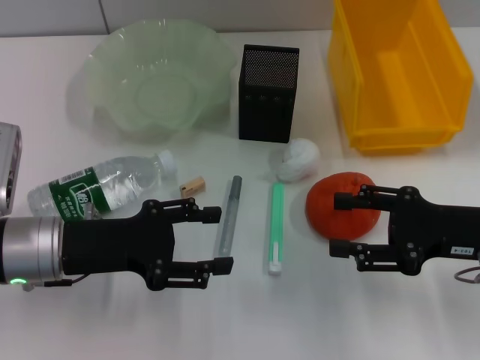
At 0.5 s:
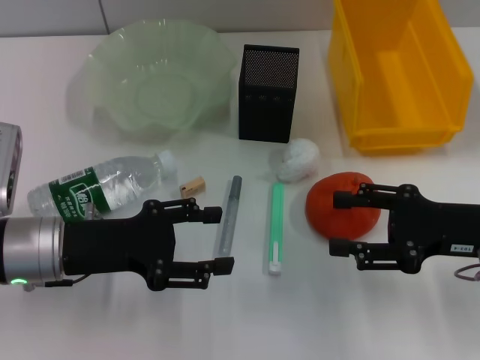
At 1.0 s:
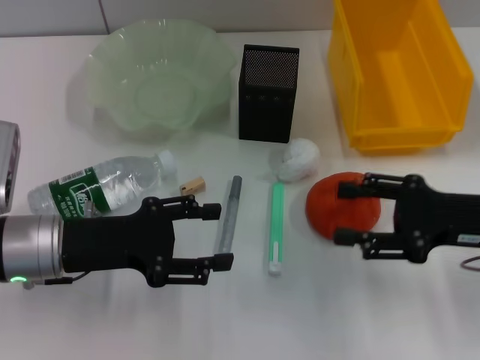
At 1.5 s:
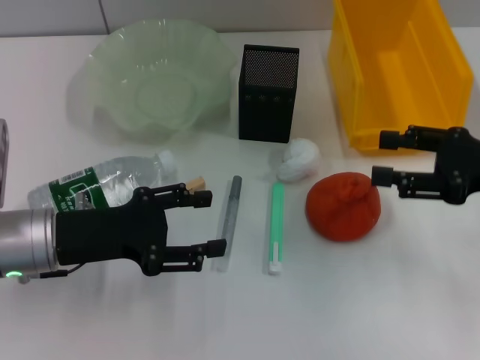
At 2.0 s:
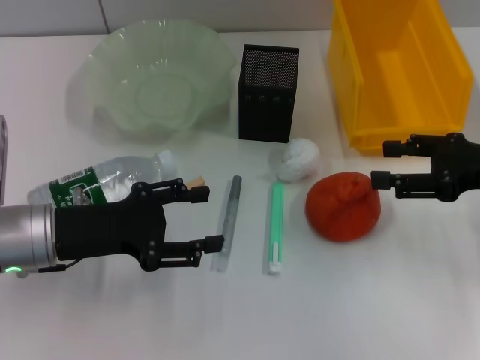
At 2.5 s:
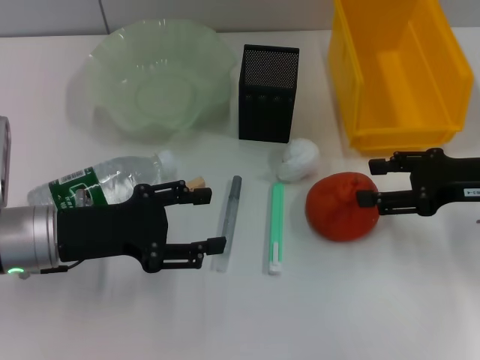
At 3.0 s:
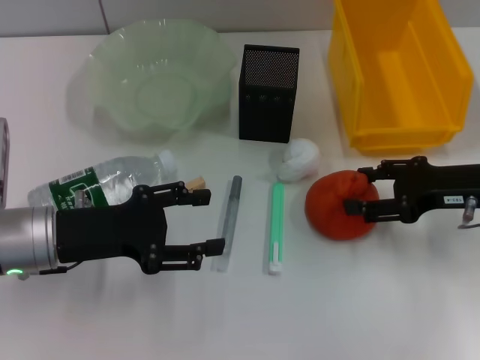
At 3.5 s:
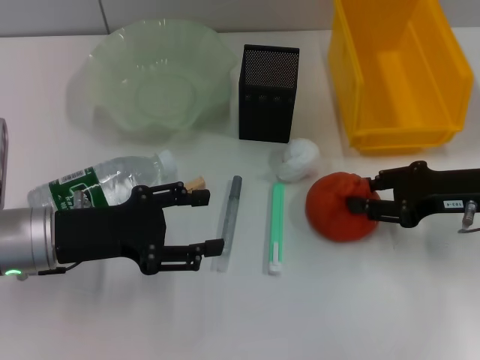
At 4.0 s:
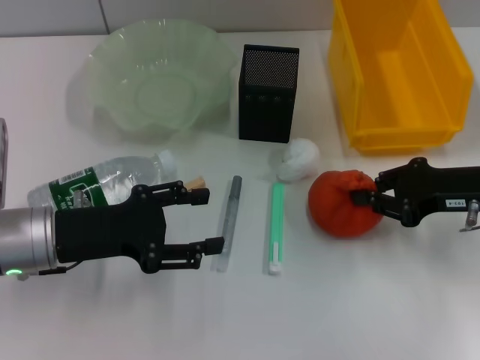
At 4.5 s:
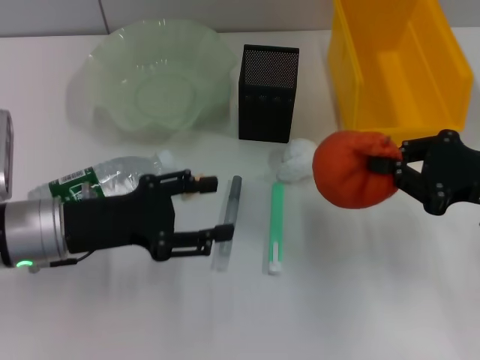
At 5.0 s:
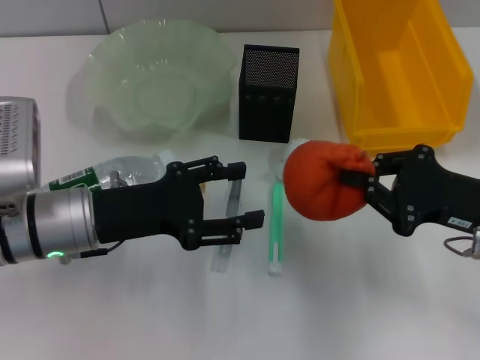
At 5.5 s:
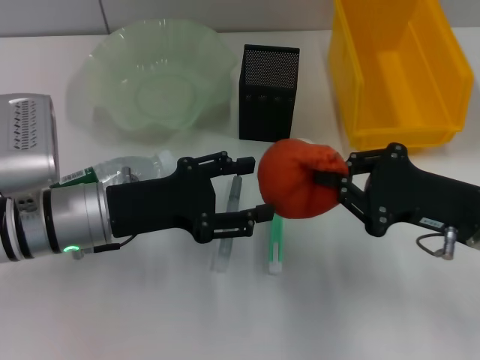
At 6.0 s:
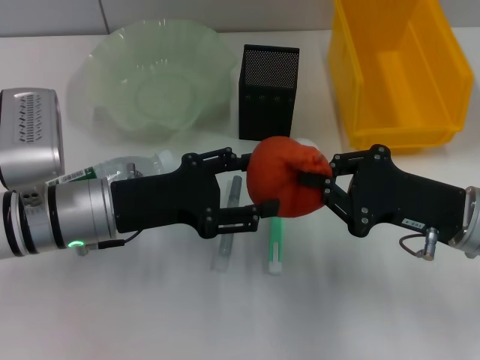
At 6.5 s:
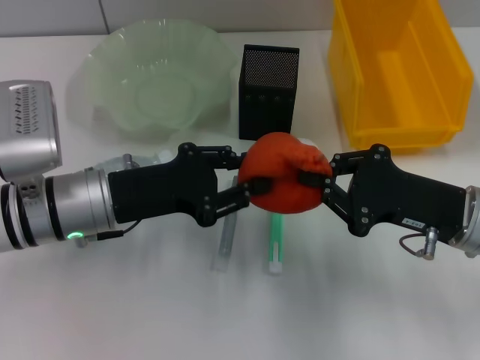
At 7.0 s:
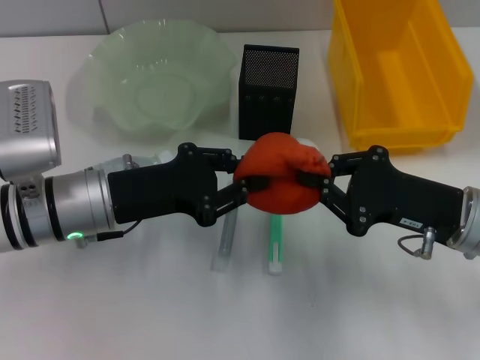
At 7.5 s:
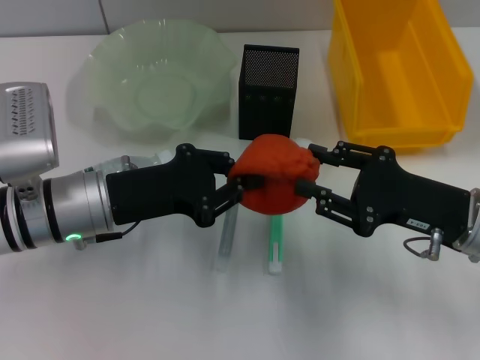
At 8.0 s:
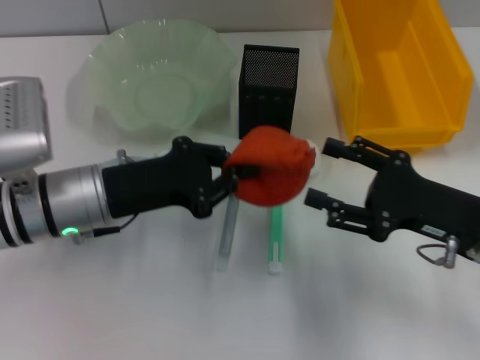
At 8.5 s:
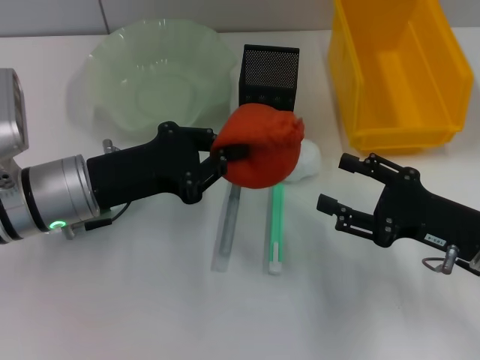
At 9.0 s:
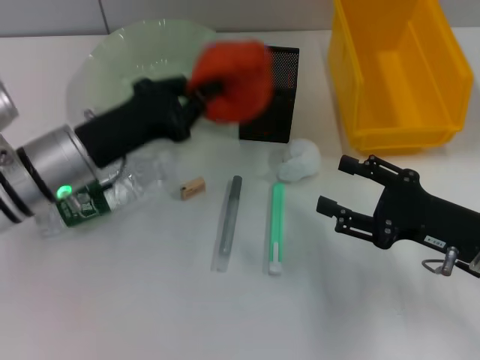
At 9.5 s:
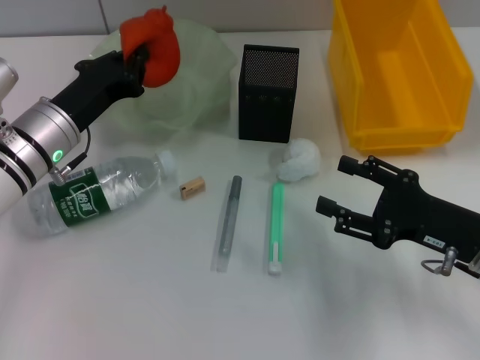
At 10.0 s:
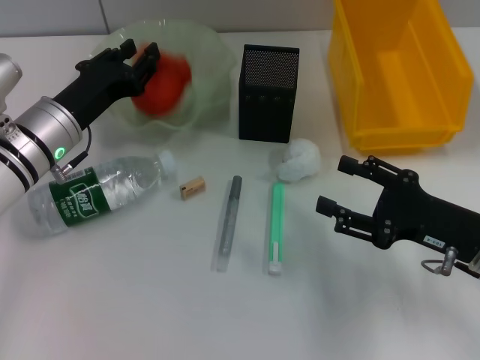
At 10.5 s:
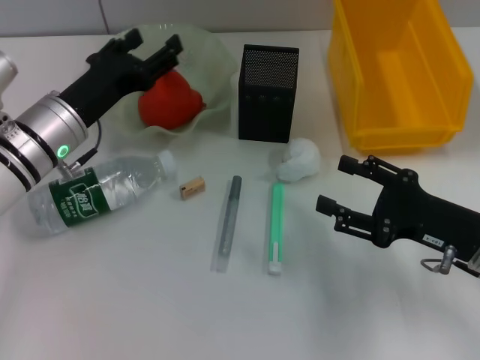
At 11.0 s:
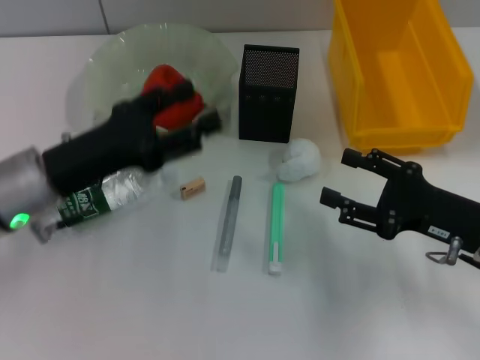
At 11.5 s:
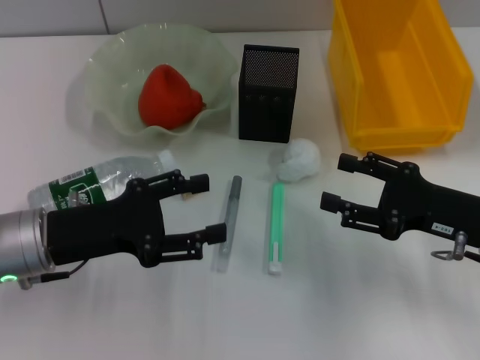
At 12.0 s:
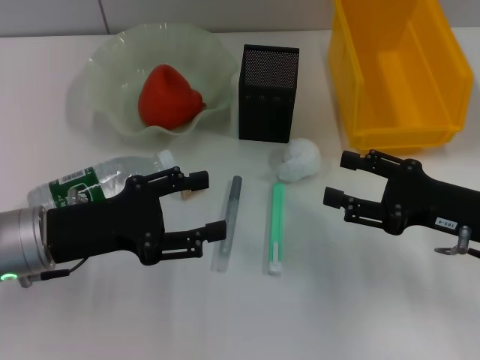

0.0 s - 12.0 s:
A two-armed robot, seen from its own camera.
Step, 0.0 s - 3.5 s: Grab the orange with the right hand.
Step, 4.0 s - 7.5 s: Pass the orange from the right hand to the left hand.
Step, 8.0 s - 9.5 s: Place the orange into the fruit bowl with the left hand.
0.0 s - 2.0 s: The right gripper ends up roughly 5 cm from where it was.
2.0 s - 4.0 s: The right gripper closes its fingers.
4.0 s - 6.0 s: The right gripper shifts some 5 cm to the left, while the left gripper shifts about 5 cm to the right.
6.0 s - 8.0 s: The left gripper closes up; the right gripper opens.
8.0 s - 10.0 s: The left gripper heads forward, covering approximately 5 cm.
10.0 s - 12.0 s: The left gripper shifts roughly 10 cm backward, and opens up.

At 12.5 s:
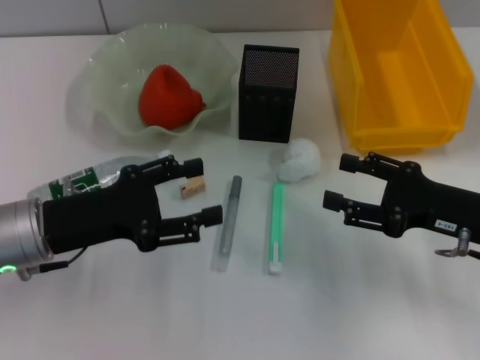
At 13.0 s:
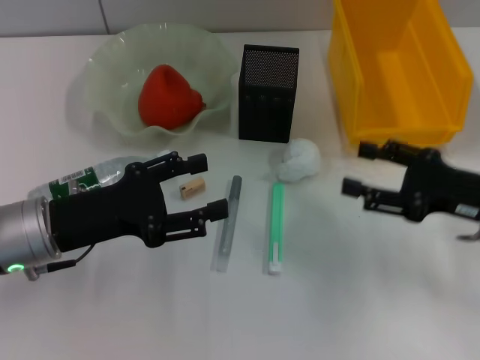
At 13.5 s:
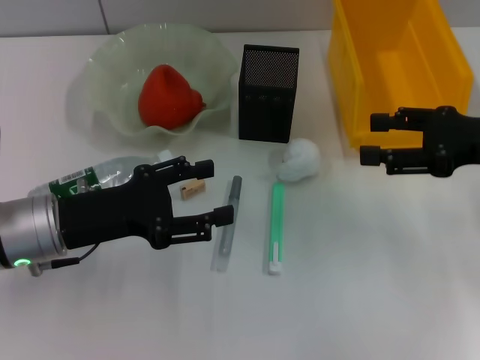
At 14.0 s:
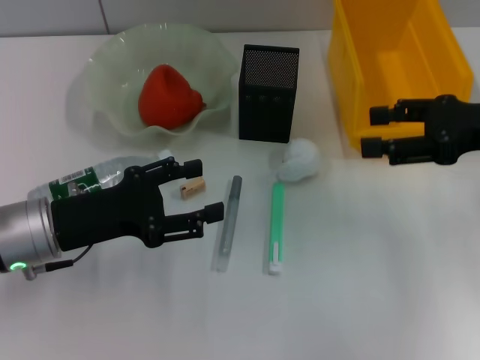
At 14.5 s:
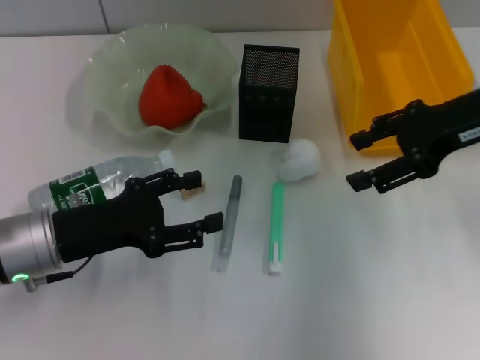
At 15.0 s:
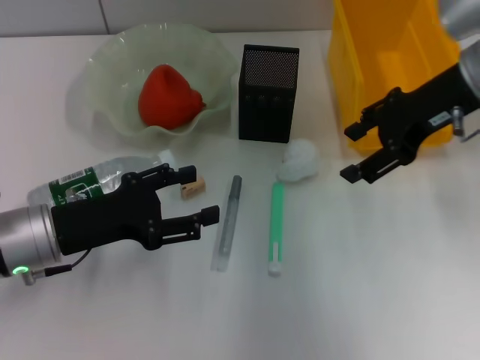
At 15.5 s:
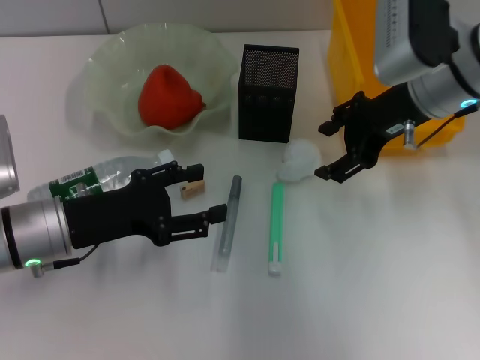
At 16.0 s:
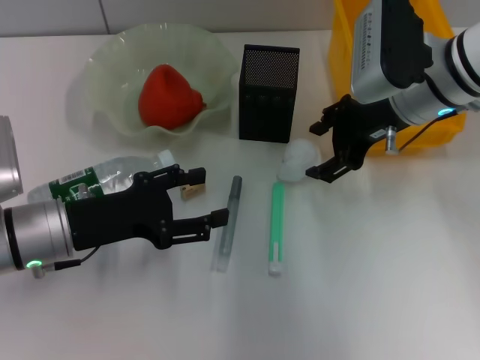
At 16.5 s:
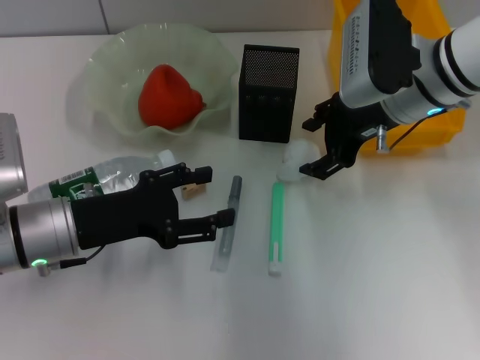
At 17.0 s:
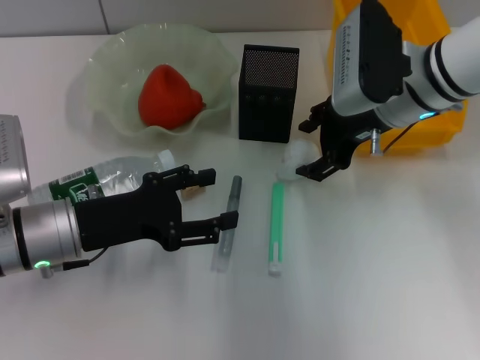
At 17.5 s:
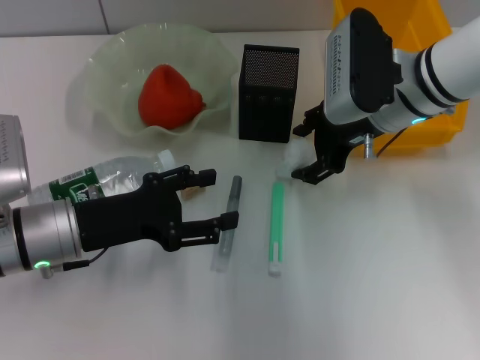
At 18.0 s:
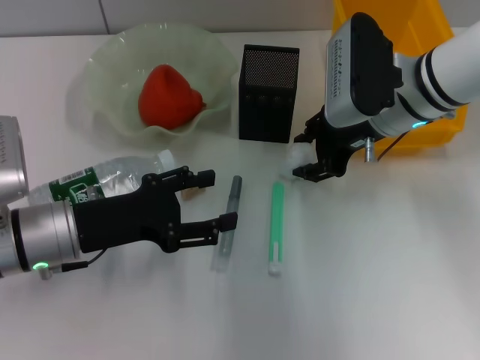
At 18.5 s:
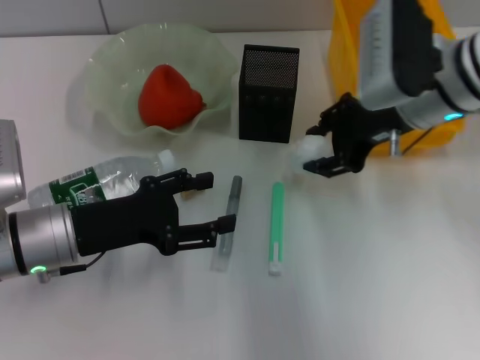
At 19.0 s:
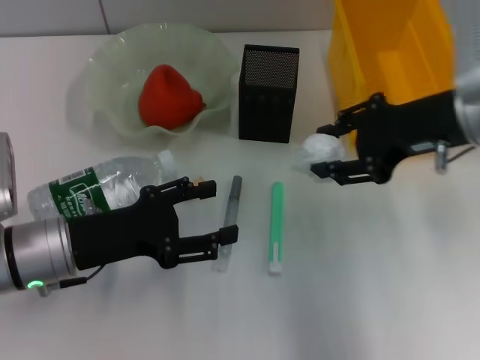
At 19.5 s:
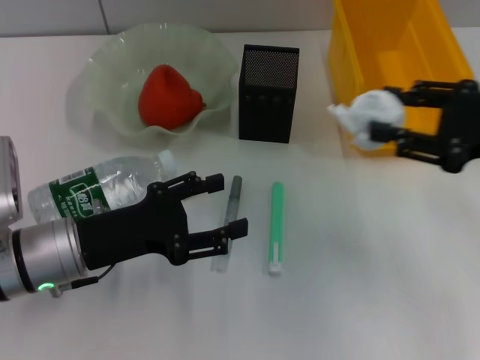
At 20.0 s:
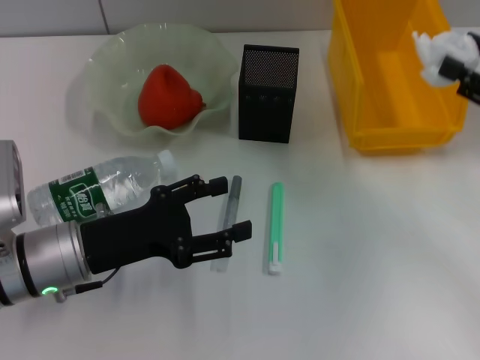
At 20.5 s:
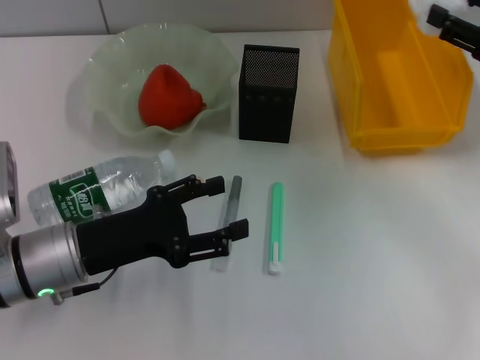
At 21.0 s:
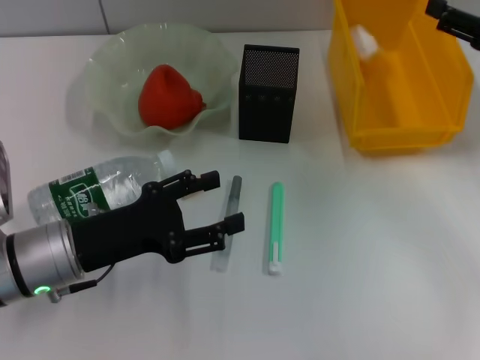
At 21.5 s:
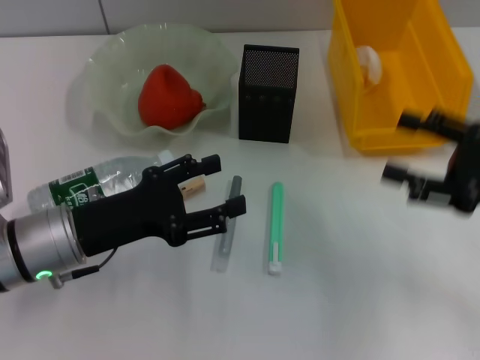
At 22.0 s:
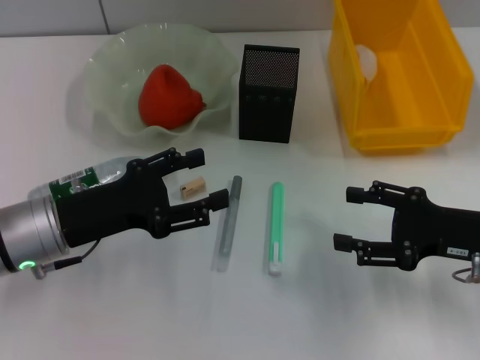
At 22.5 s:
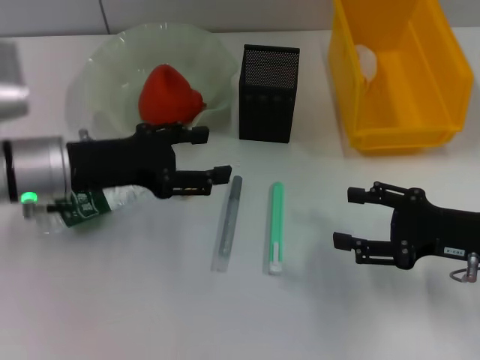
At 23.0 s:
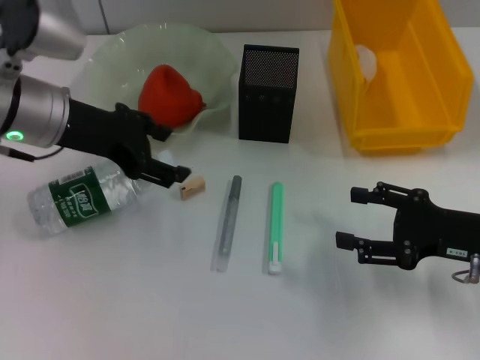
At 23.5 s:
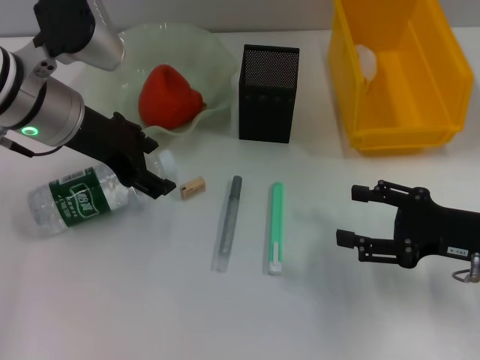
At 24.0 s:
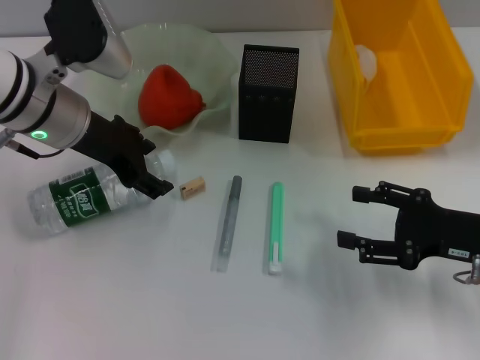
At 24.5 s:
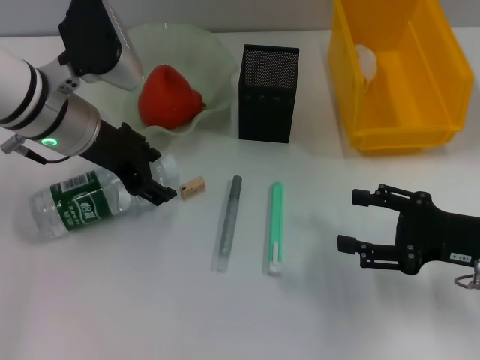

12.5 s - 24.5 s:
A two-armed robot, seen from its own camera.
Step, 12.5 s - 17.5 s: Grab the paper ball with the right hand.
Step, 18.0 s - 21.0 s: Place the paper ball into the trash can with the right hand.
12.5 s - 14.5 s: The right gripper moves upward and forward, roughly 15 cm.
14.5 s - 16.5 s: The right gripper shifts roughly 10 cm to the left.
16.5 s - 18.5 s: There are only small adjustments of the grippers.
18.5 s - 20.5 s: The right gripper heads to the right, covering roughly 15 cm.
20.5 s - 22.5 s: The right gripper is displaced downward, backward and to the left by some 15 cm. The left gripper heads forward and upward, covering approximately 10 cm.
22.5 s - 24.5 s: The left gripper goes roughly 5 cm forward.

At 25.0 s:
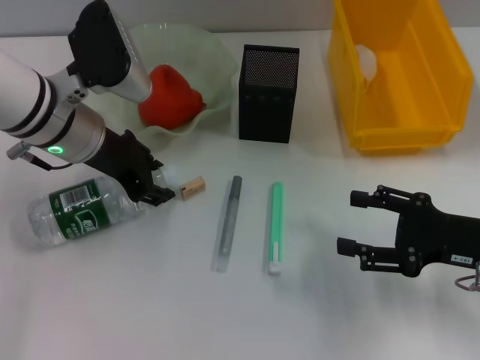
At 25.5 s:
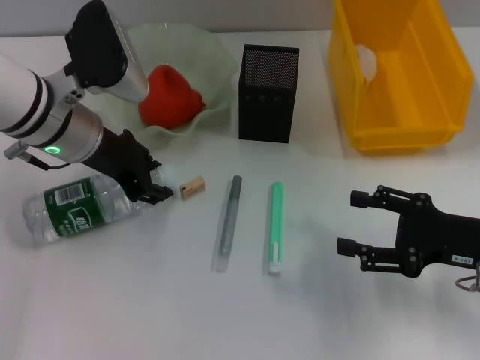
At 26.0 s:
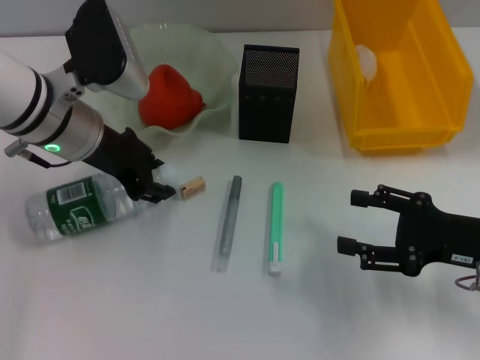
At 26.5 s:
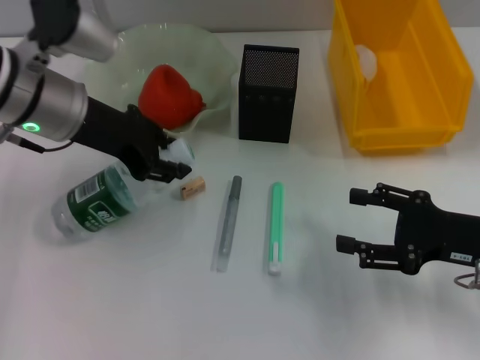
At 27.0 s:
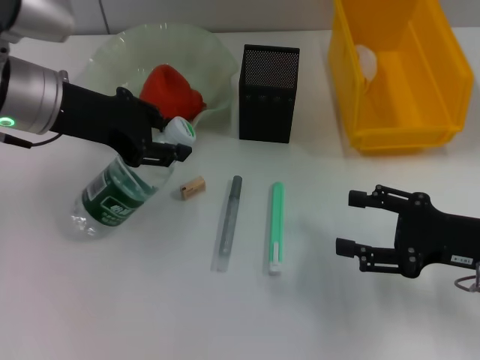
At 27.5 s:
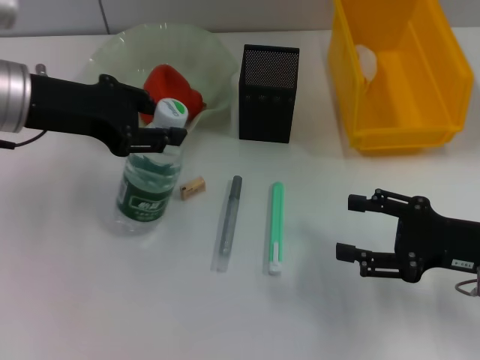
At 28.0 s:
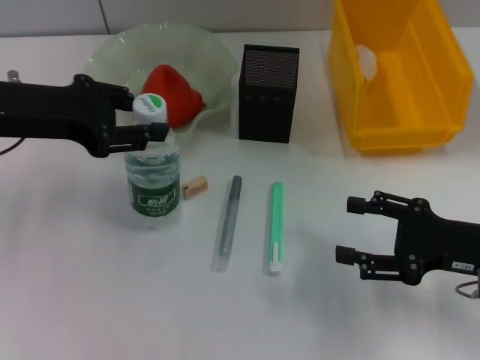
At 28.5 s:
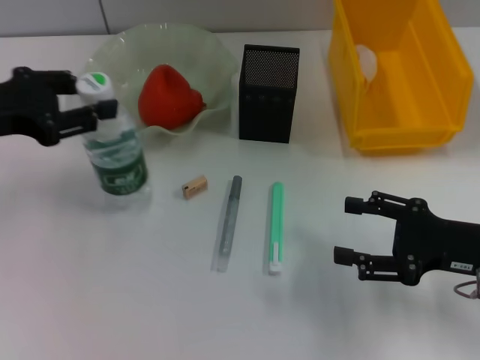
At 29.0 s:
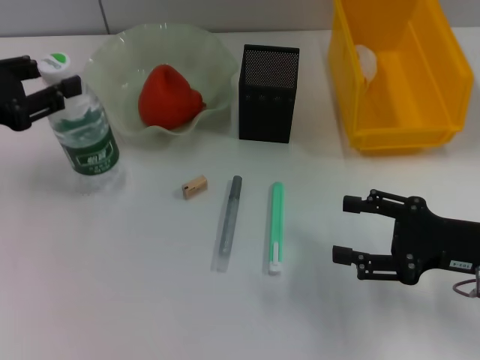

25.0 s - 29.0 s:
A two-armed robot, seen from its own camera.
25.0 s - 27.0 s: The left gripper ends up approximately 5 cm from where it was.
27.0 s - 29.0 s: The left gripper shifts approximately 10 cm to the left.
